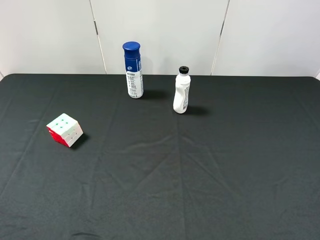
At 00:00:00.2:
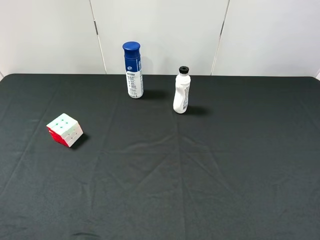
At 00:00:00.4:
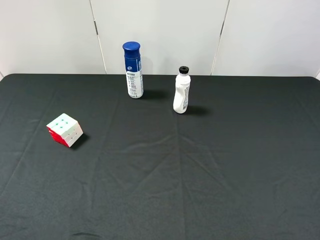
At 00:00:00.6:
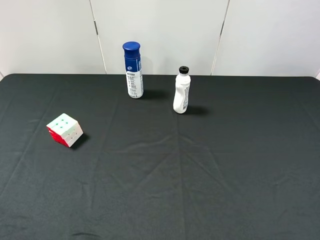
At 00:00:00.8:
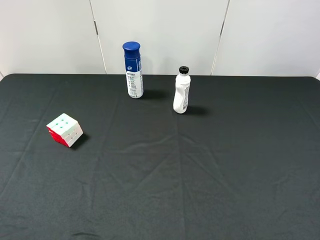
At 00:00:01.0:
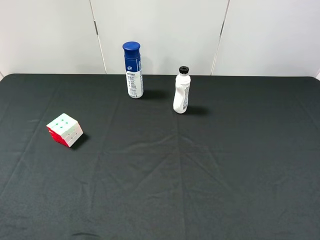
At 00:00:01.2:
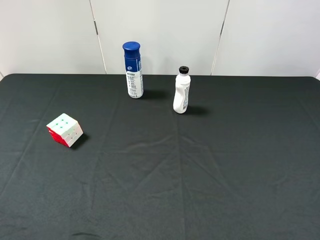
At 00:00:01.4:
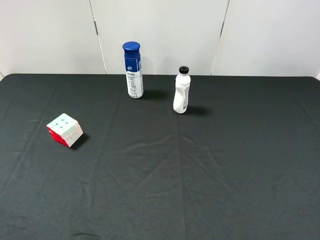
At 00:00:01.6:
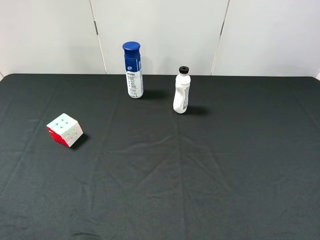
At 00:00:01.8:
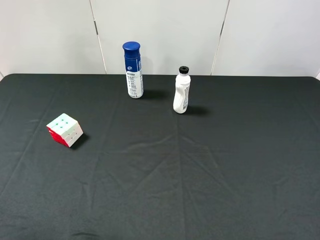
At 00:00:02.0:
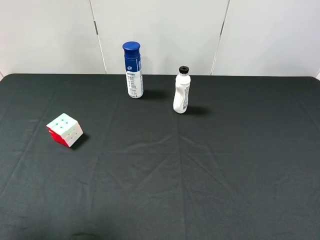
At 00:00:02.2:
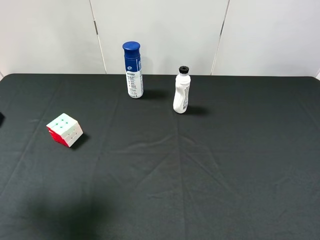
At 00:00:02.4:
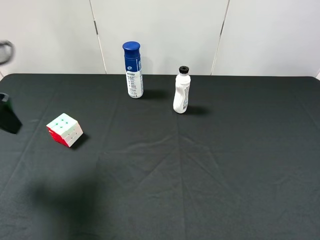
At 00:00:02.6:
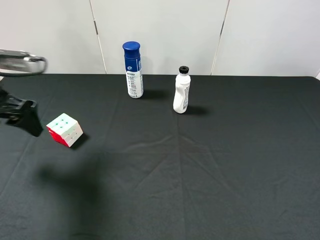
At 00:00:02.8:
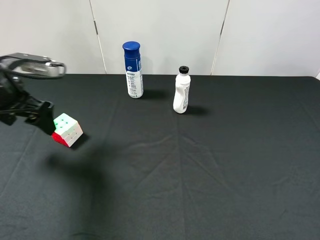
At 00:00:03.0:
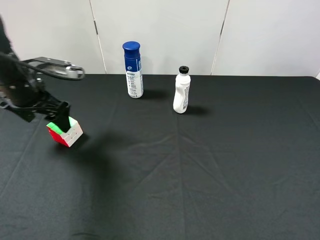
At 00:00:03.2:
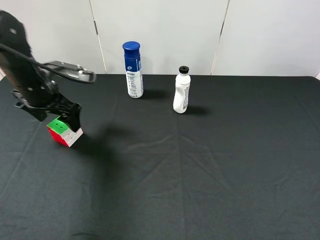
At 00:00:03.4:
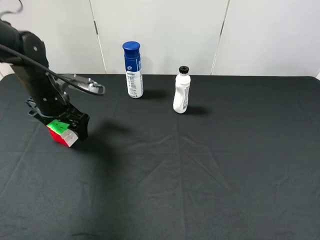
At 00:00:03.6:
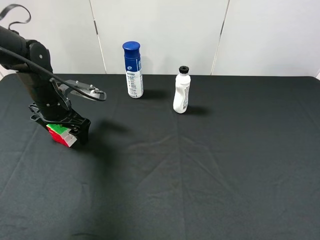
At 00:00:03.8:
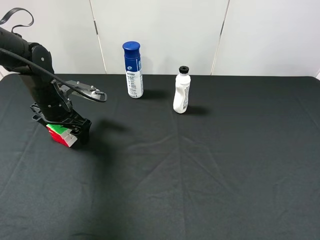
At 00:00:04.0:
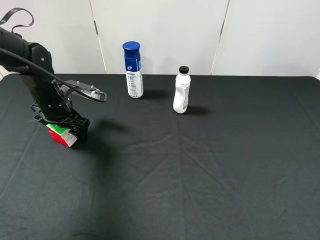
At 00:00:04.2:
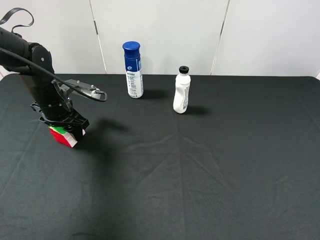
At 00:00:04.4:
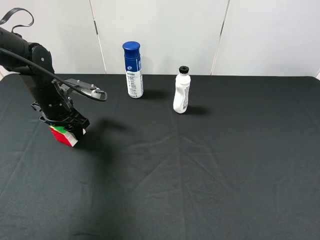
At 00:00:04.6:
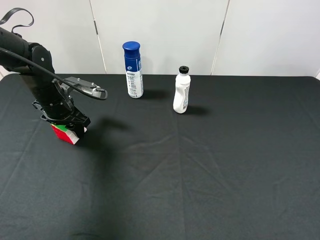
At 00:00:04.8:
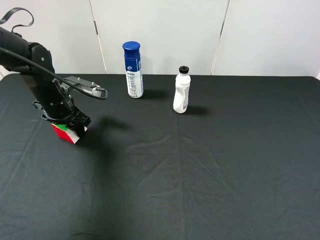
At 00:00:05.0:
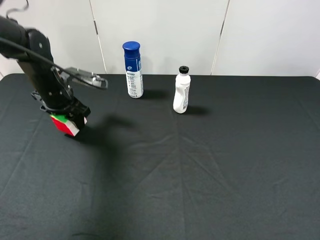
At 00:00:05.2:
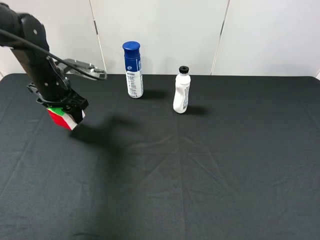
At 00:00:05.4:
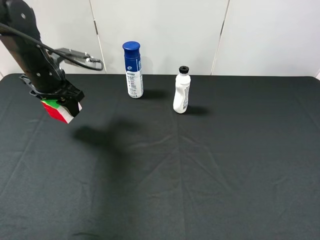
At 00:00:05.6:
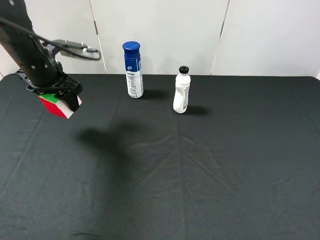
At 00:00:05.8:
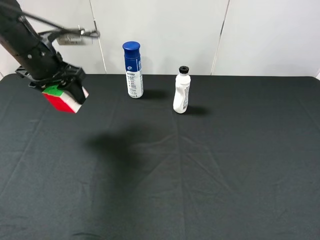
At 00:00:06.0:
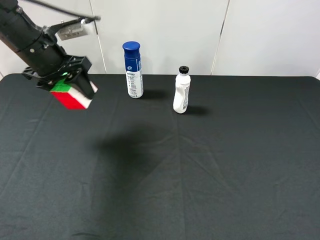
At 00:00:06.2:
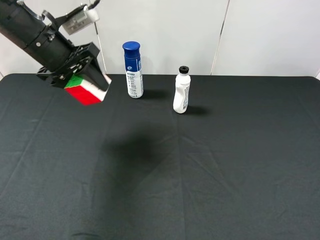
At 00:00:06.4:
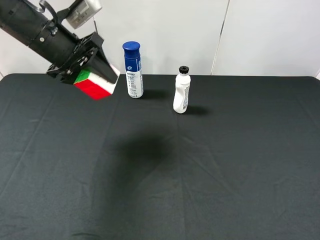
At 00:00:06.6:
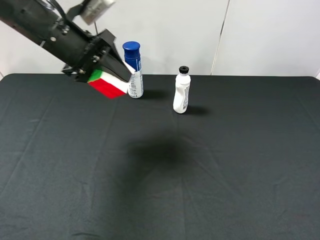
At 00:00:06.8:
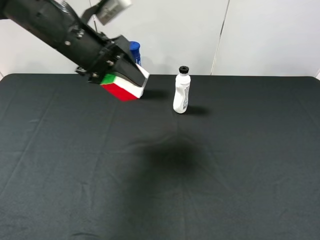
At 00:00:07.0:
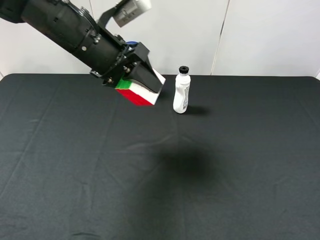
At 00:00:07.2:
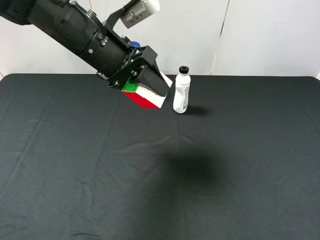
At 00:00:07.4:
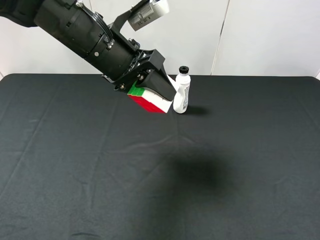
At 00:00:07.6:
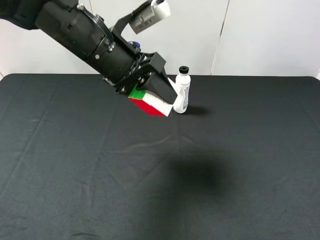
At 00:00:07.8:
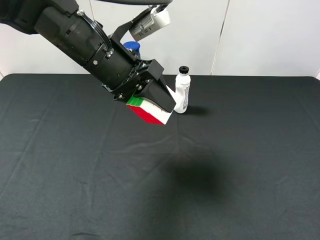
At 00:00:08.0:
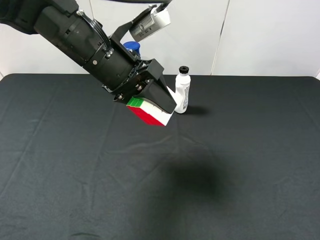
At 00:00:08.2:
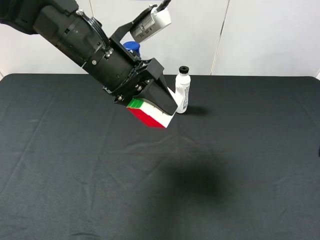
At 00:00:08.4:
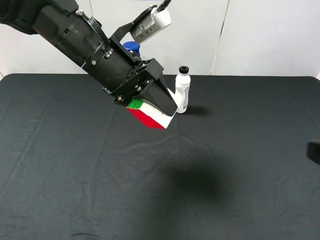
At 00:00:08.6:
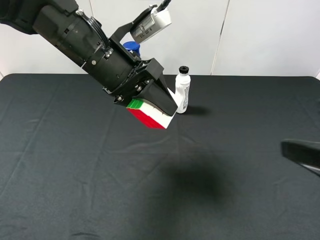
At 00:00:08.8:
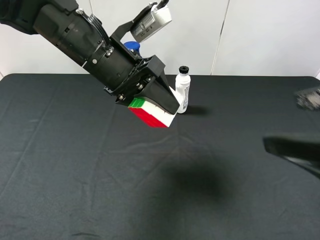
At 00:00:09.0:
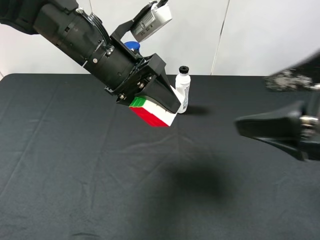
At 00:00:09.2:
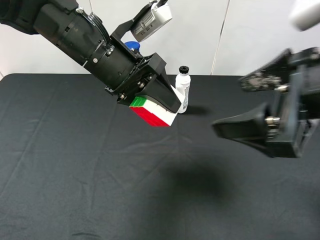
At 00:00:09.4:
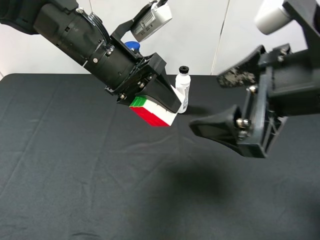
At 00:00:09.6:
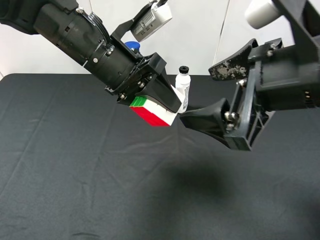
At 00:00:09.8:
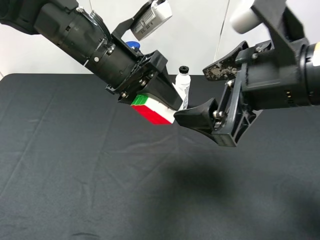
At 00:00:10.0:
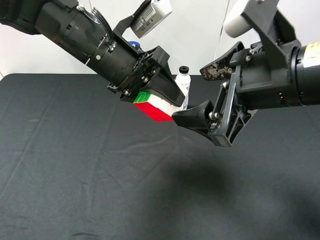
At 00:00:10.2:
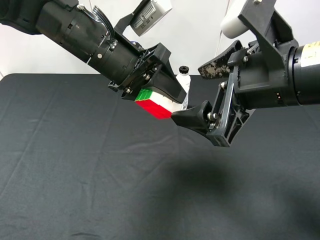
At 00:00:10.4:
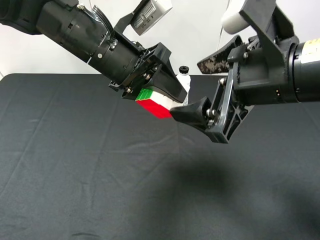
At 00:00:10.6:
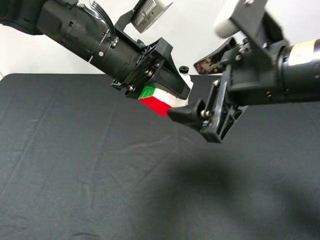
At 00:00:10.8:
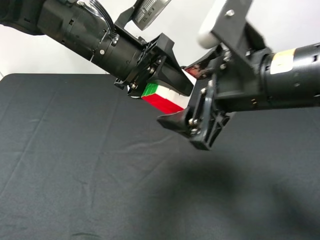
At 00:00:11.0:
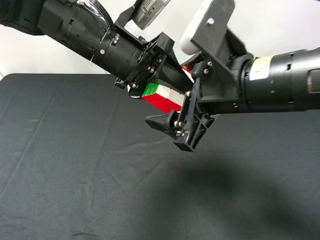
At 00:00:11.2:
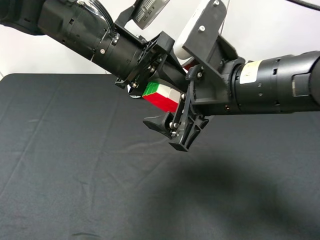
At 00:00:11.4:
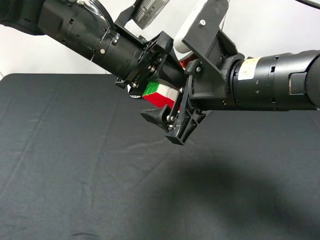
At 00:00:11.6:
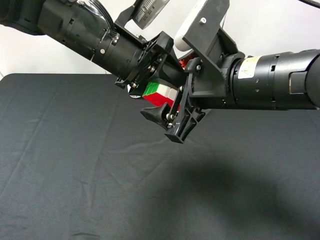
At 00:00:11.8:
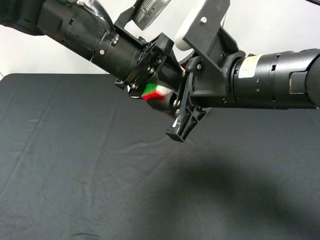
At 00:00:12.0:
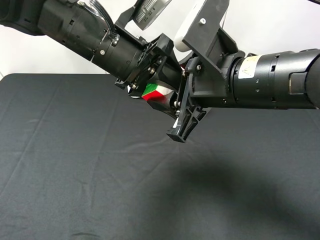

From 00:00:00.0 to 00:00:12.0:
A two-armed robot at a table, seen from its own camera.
Task of the whole recording: use the left gripper to pick up the item and transfer it from the left gripper to the right gripper.
From 00:00:01.6 to 00:00:03.0: The left gripper travels forward and downward by roughly 30 cm.
From 00:00:03.0 to 00:00:04.4: The left gripper moves downward, approximately 10 cm, and closes.
From 00:00:04.4 to 00:00:06.0: The left gripper goes some 15 cm upward.
From 00:00:06.0 to 00:00:07.6: The left gripper heads to the right, covering some 15 cm.
From 00:00:07.6 to 00:00:09.0: The right gripper moves forward and to the left, some 15 cm.
From 00:00:09.0 to 00:00:10.4: The right gripper shifts some 5 cm to the left.
From 00:00:10.4 to 00:00:12.0: The right gripper ends up roughly 5 cm from where it was, and closes up.

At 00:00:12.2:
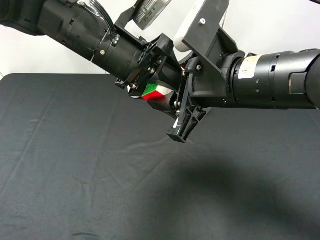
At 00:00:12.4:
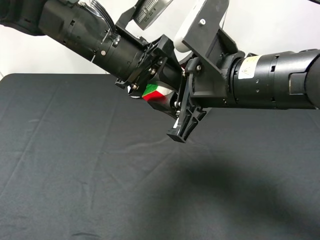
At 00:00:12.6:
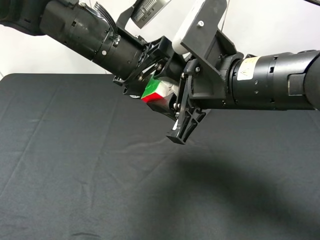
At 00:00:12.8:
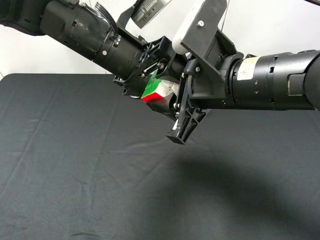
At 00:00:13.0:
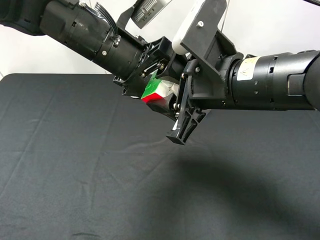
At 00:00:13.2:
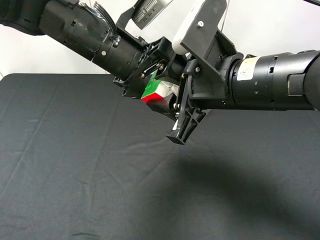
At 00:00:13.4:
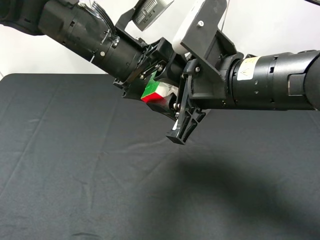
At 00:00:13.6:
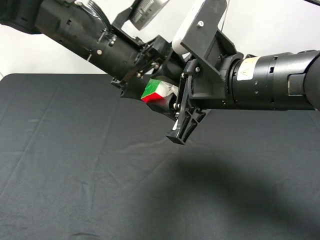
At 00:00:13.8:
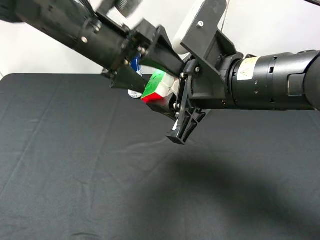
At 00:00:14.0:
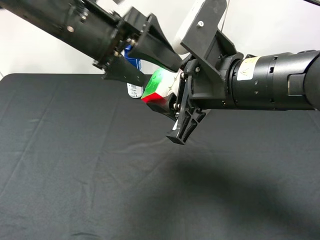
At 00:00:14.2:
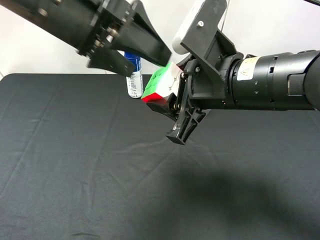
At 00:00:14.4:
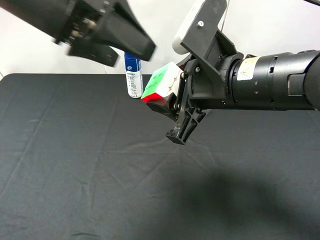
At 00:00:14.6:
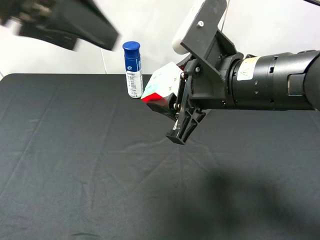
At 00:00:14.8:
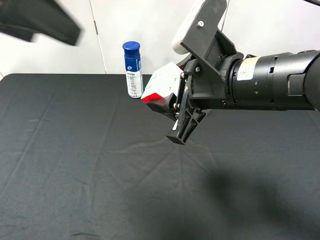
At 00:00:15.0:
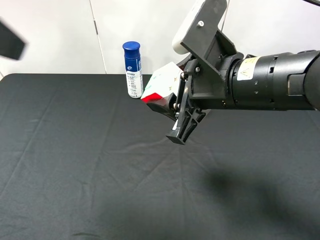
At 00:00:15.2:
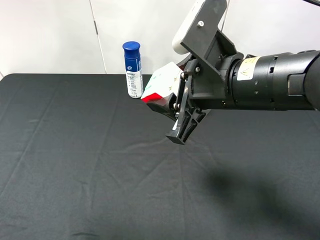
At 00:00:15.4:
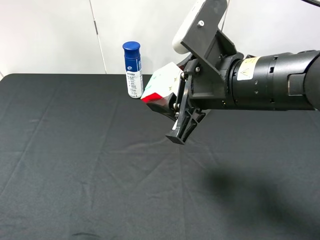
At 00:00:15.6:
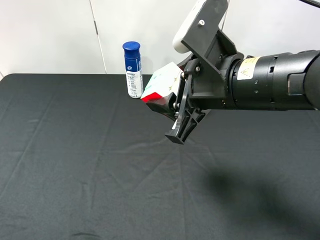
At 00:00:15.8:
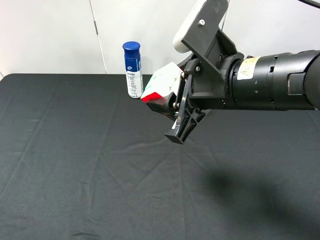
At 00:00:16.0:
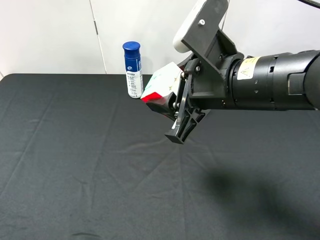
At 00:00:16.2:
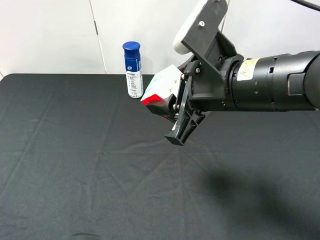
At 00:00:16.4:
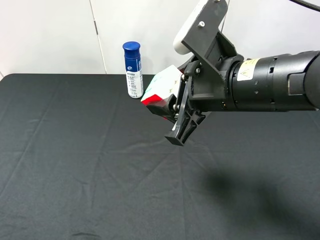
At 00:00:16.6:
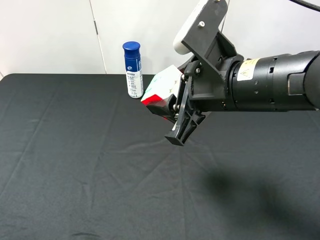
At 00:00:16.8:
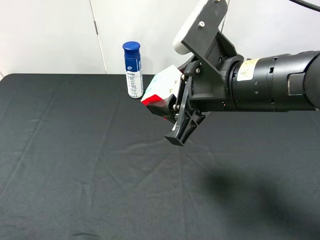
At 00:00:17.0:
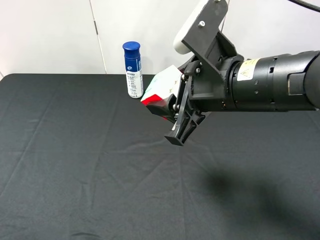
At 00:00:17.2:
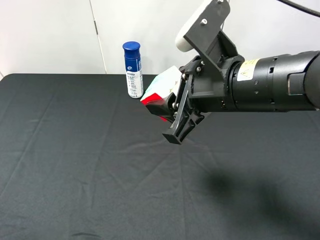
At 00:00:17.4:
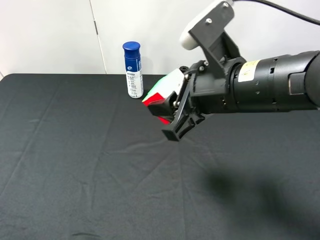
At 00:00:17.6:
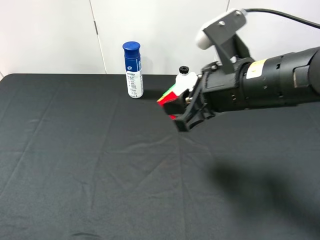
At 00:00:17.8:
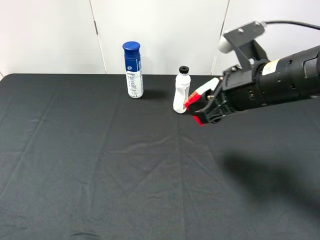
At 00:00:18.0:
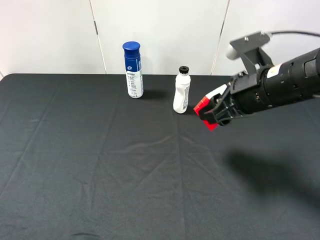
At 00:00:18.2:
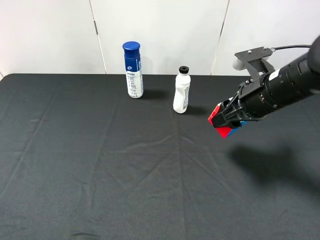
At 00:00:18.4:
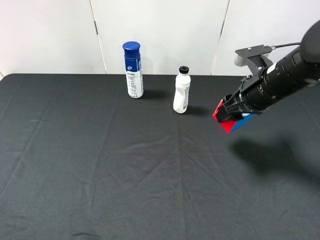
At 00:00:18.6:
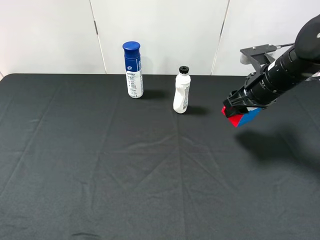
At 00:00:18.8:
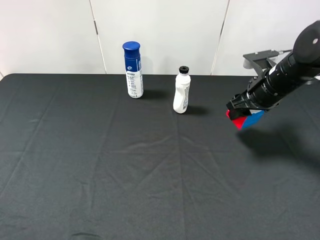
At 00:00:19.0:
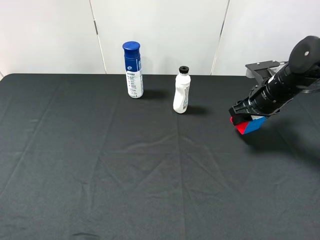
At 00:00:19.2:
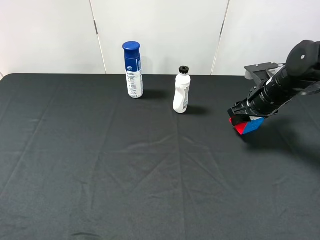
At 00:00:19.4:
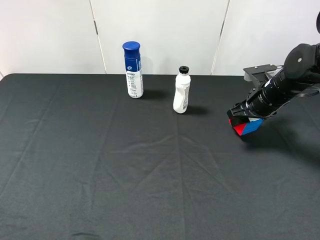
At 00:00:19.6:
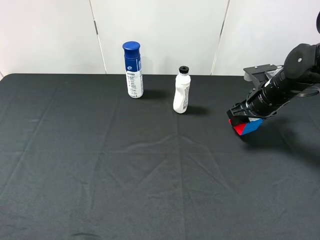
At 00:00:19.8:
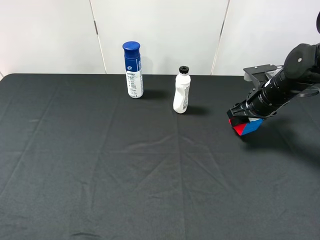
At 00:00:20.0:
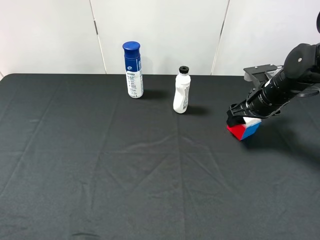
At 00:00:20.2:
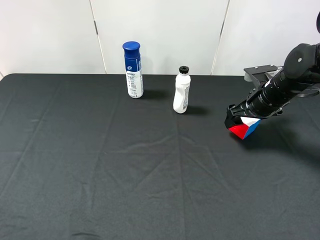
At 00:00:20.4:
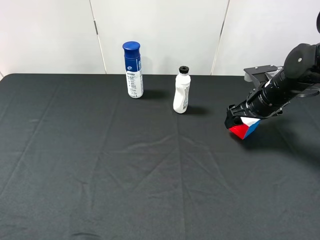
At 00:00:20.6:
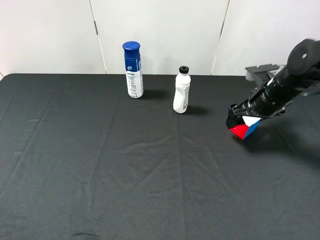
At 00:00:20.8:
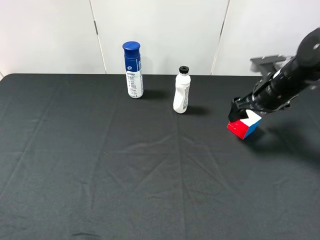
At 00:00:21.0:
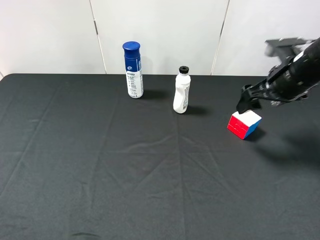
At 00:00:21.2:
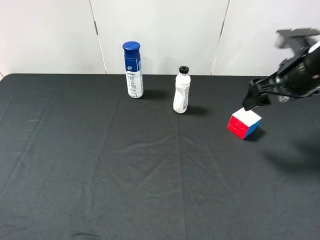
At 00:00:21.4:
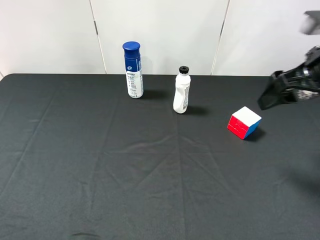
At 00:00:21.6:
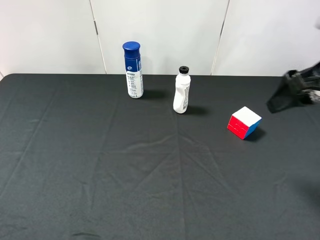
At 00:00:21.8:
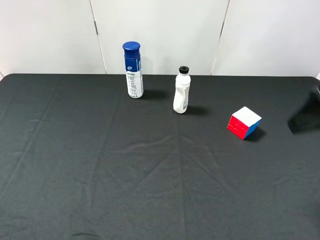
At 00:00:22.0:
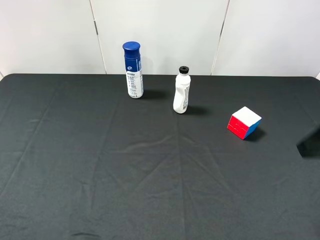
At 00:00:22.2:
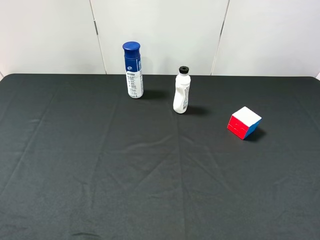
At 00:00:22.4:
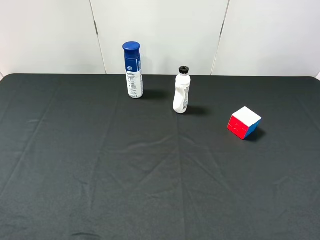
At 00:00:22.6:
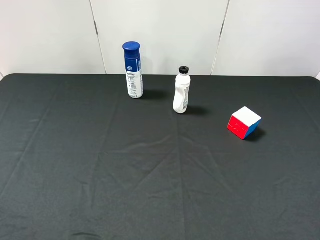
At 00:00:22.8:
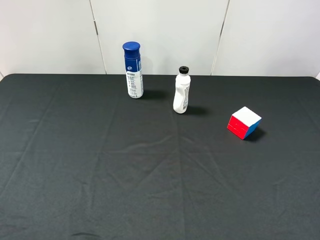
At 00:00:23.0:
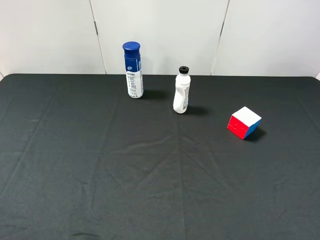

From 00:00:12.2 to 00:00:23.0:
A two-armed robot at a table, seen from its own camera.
Task of the whole recording: use the left gripper to pick up the item and transfer it from the left gripper to the right gripper.
From 00:00:12.2 to 00:00:13.8: The left gripper opens up.
From 00:00:13.8 to 00:00:15.2: The left gripper goes roughly 25 cm backward, to the left and upward.
From 00:00:15.2 to 00:00:16.8: The left gripper heads downward, backward and to the left, covering about 20 cm.
From 00:00:16.8 to 00:00:18.4: The right gripper moves to the right, forward and downward, roughly 15 cm.
From 00:00:18.4 to 00:00:20.0: The right gripper is displaced downward and forward by some 10 cm, and opens its fingers.
From 00:00:20.0 to 00:00:21.4: The right gripper goes about 20 cm upward and backward.
From 00:00:21.4 to 00:00:23.0: The right gripper heads backward, covering some 25 cm.
